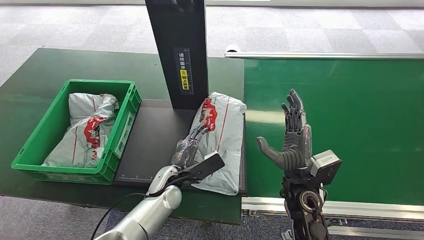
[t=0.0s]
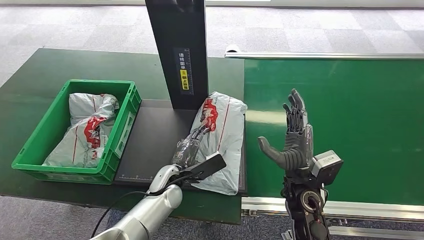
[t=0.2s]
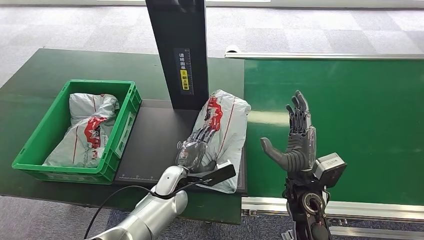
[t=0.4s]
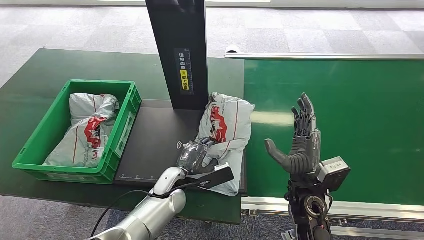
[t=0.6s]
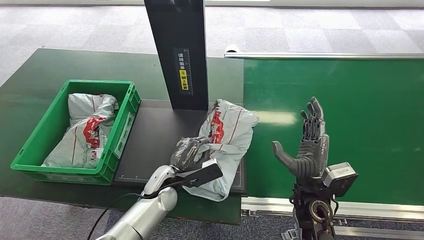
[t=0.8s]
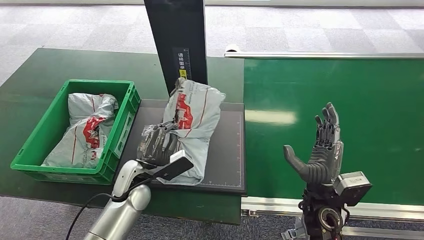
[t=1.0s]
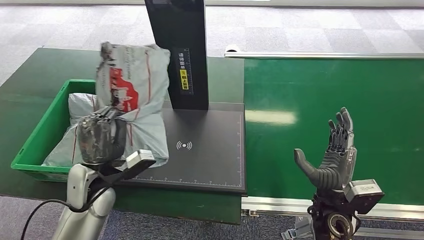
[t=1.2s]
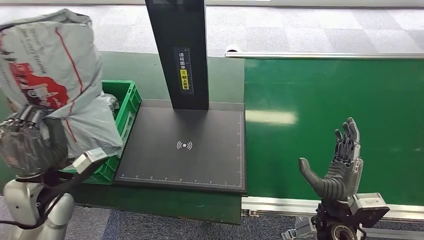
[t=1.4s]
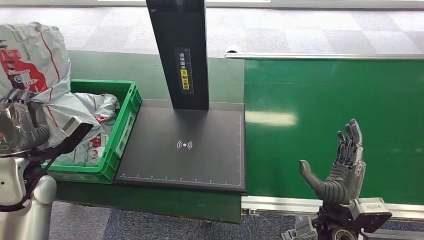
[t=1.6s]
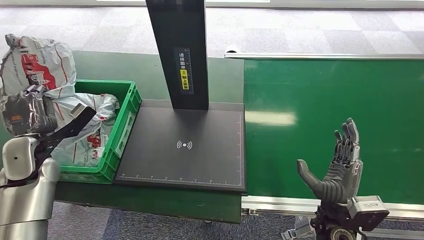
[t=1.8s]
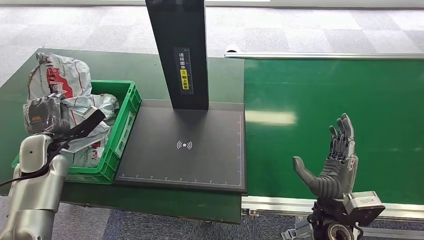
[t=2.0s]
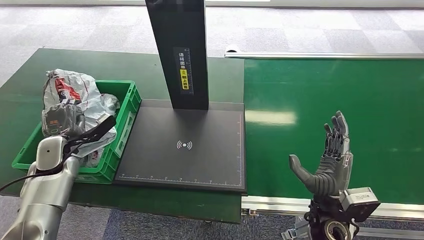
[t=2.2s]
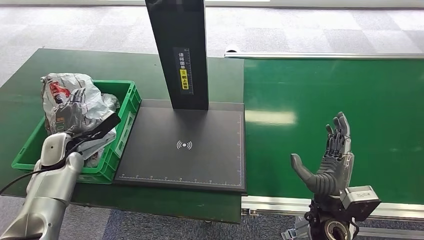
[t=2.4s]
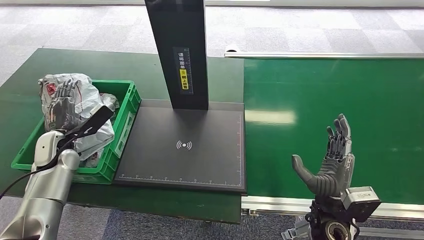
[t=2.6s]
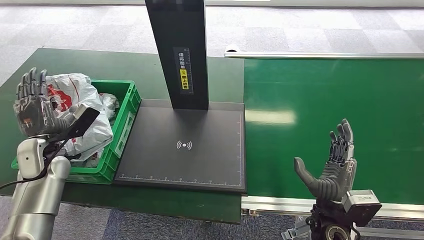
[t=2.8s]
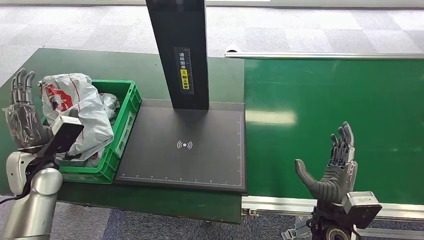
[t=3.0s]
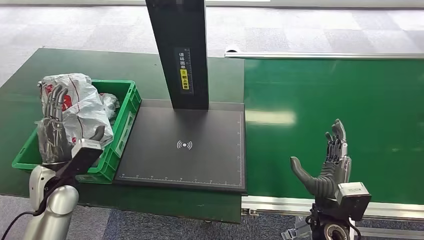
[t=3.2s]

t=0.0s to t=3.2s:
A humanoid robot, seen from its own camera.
Step, t=0.0s to t=1.2s: Pick up the package from the inbound machine.
Step, t=1.4s to t=3.0s: Place the package into the parcel locker.
t=1.6s to t=3.2s: The left hand shifts some 5 cm downward, and reaches approximately 10 cm forward, then returns.

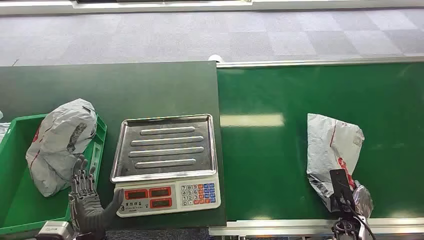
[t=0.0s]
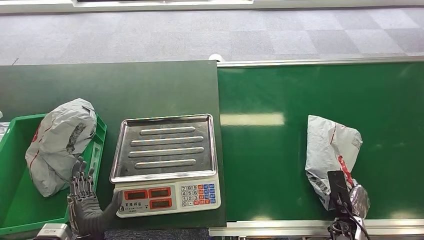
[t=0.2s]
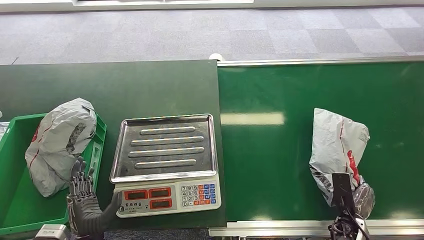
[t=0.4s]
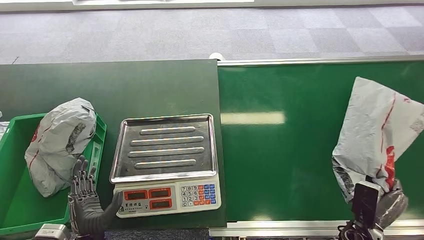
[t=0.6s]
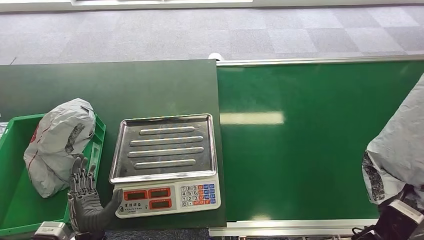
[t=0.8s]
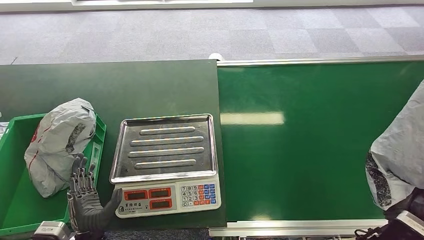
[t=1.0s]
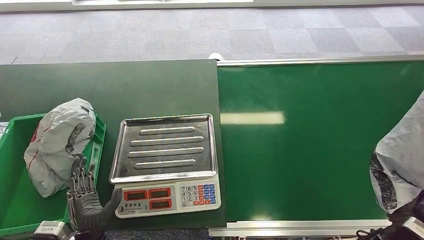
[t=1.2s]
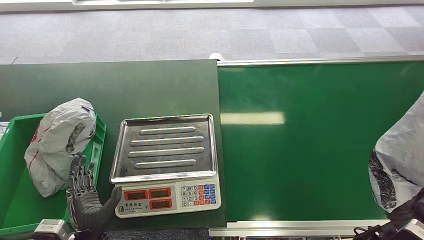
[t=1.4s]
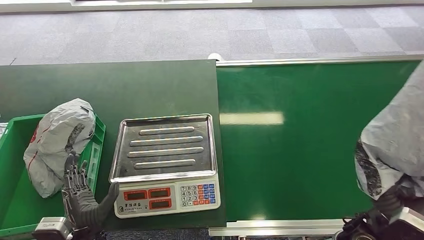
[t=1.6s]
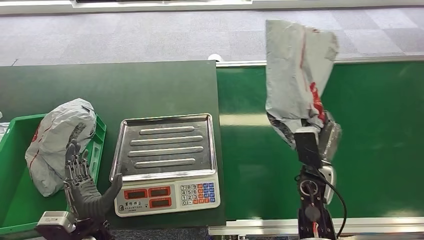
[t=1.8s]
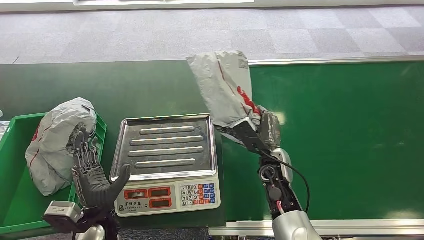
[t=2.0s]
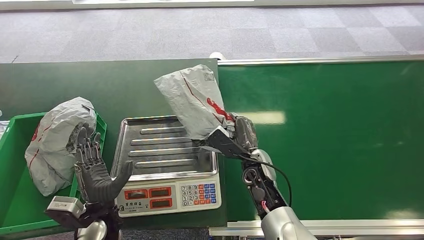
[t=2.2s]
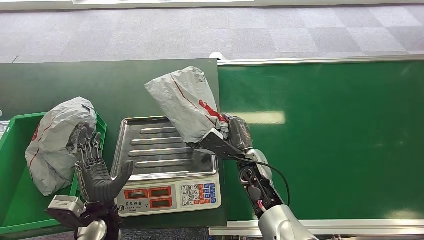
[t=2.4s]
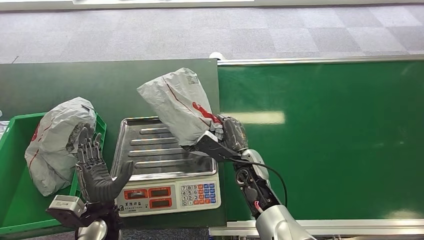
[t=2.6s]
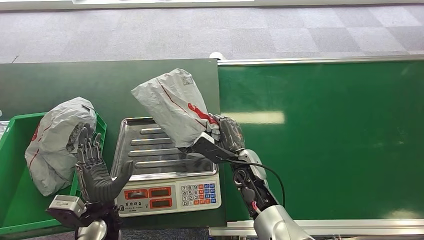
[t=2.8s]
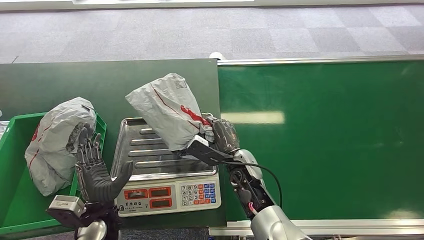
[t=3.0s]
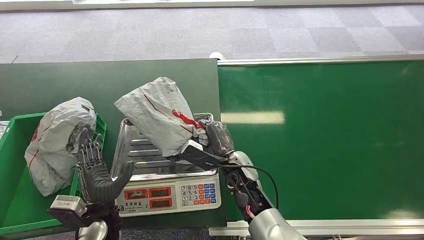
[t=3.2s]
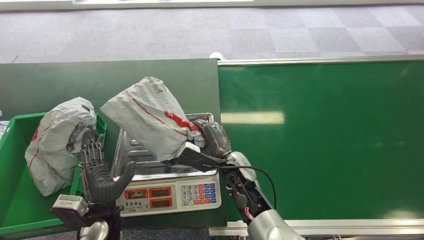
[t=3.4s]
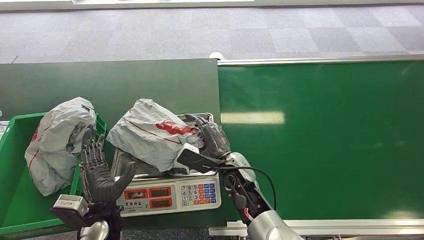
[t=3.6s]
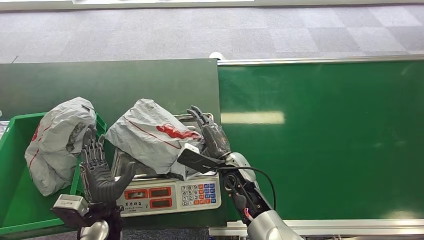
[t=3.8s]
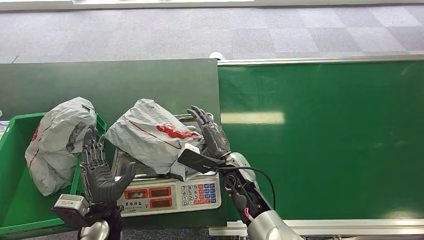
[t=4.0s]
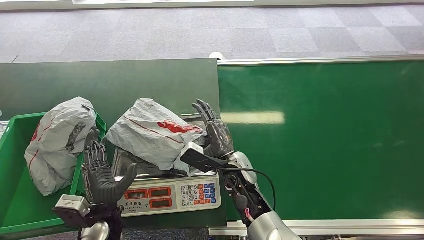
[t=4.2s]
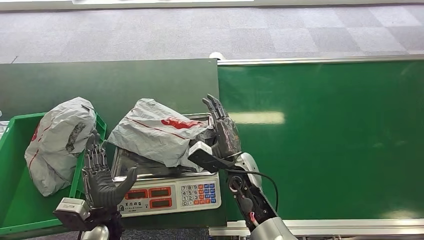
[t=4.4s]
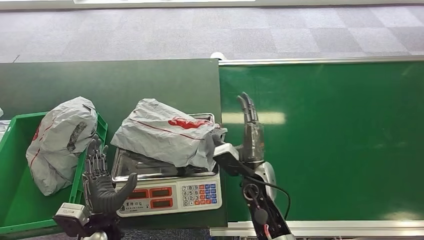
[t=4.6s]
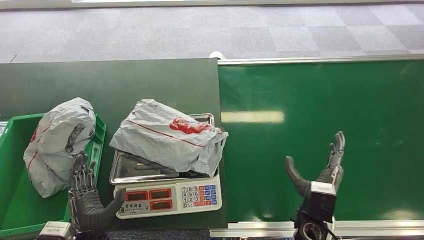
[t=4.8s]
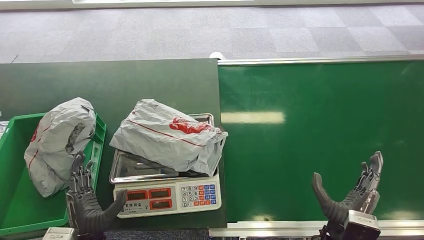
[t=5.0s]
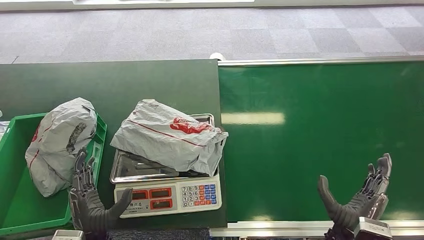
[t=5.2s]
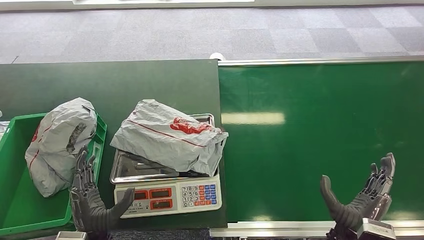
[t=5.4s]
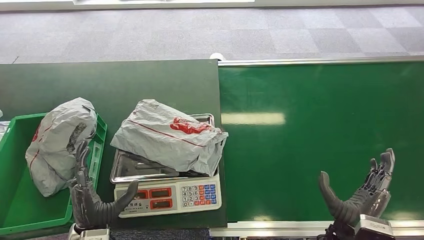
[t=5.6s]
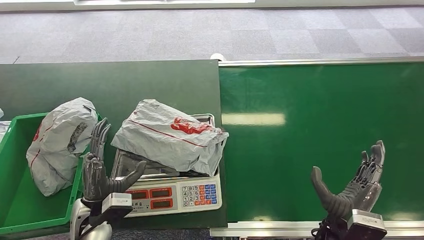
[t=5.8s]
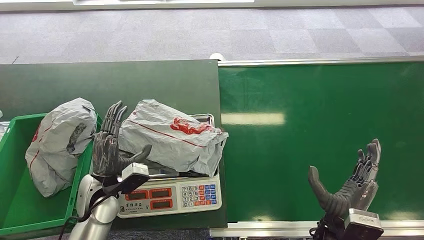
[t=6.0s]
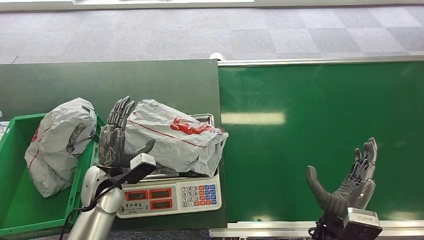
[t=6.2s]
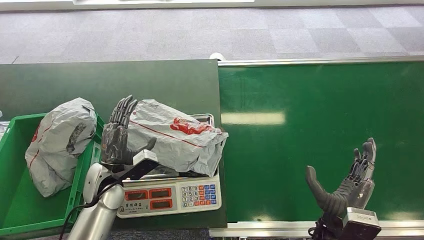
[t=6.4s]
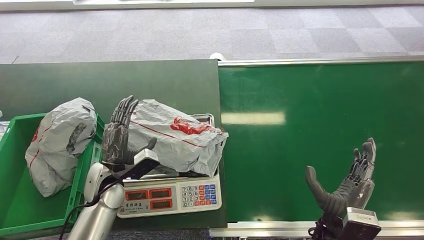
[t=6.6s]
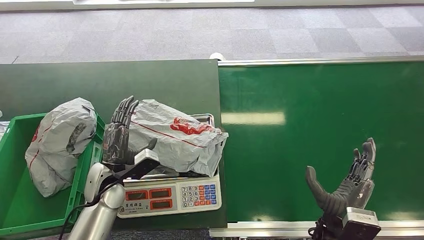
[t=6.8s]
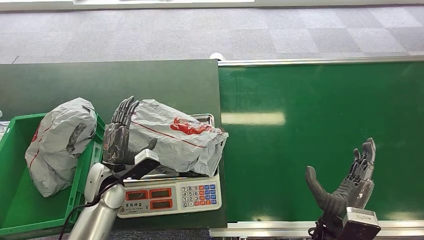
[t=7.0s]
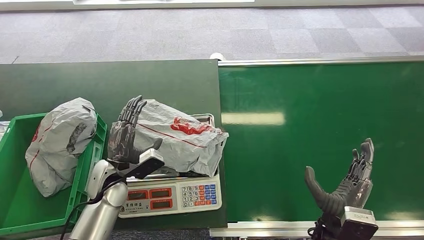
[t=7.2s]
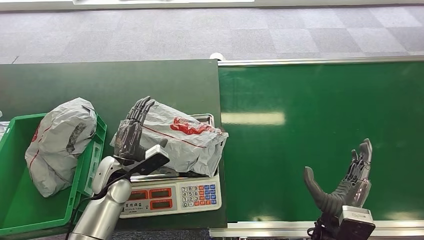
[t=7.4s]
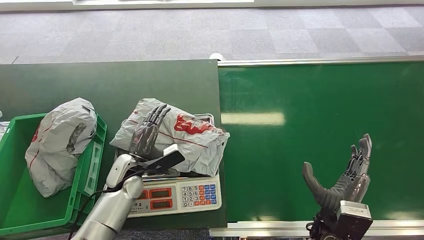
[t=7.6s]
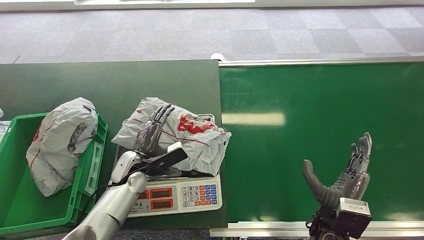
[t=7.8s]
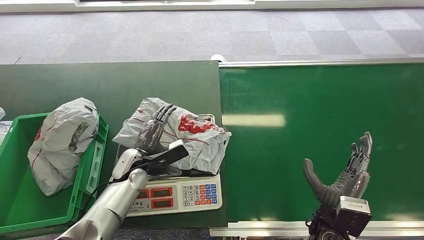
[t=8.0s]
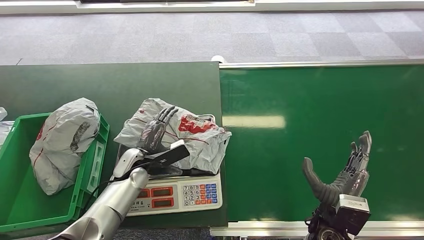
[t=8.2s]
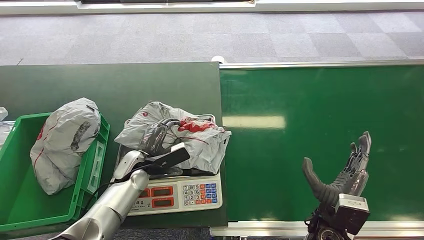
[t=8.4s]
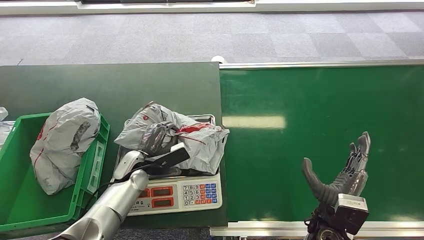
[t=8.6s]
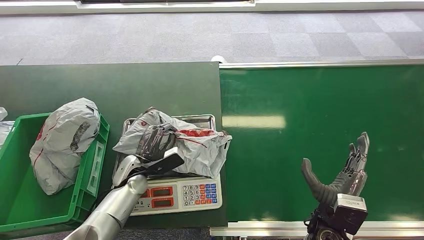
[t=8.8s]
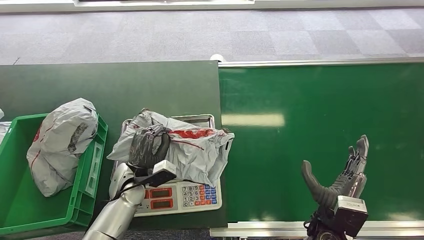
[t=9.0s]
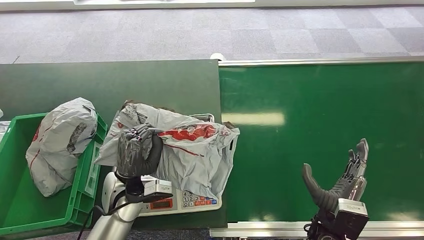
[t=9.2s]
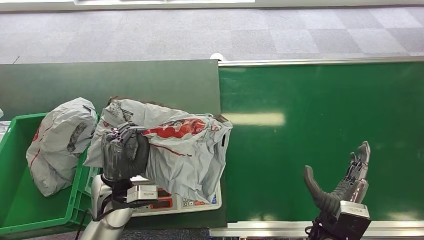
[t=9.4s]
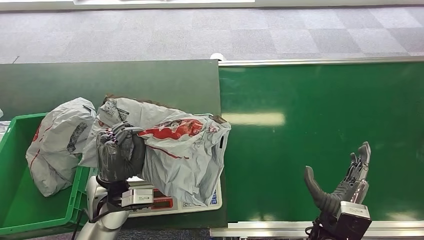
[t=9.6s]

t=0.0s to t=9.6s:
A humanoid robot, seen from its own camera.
Step, t=0.0s to t=0.6s: Pick up the package from the conveyor belt.
Step, t=2.2s to t=3.8s: Place the package onto the inbound machine.
t=4.8s to t=6.4s: The left hand travels forward and upward by about 15 cm. Meanwhile the right hand shifts by roughly 5 cm.
t=6.4s to t=8.0s: The left hand shifts about 5 cm forward.
t=8.0s to t=9.6s: The left hand travels backward and upward by roughly 10 cm.

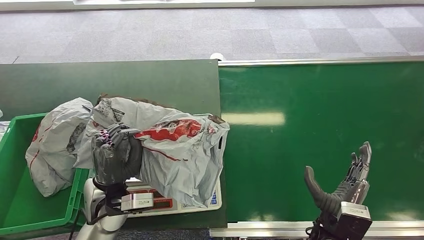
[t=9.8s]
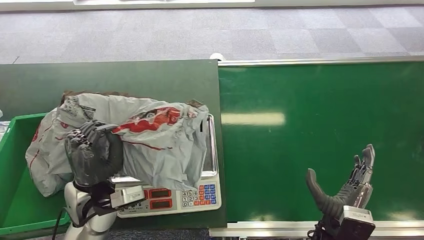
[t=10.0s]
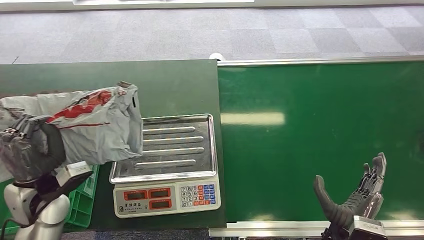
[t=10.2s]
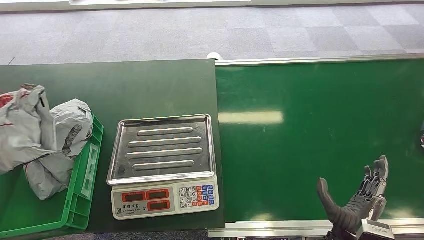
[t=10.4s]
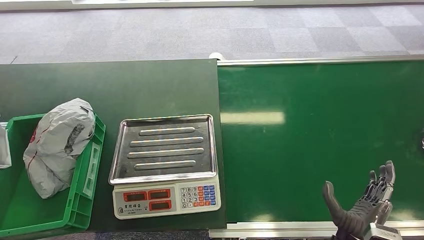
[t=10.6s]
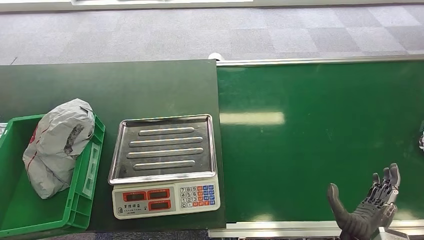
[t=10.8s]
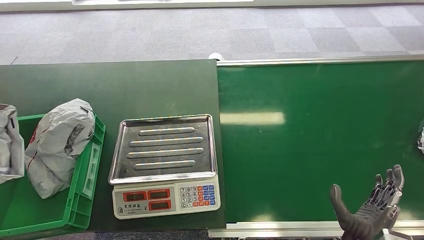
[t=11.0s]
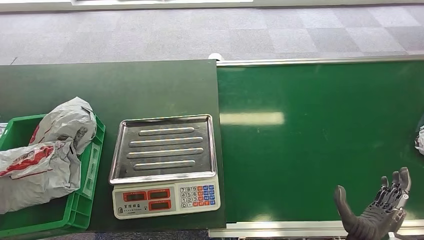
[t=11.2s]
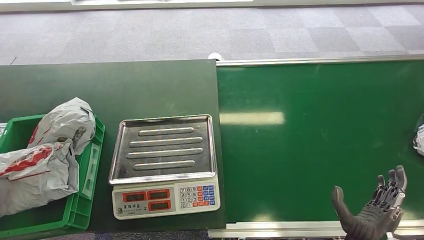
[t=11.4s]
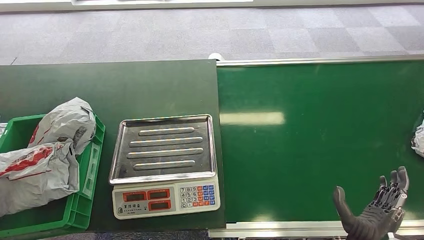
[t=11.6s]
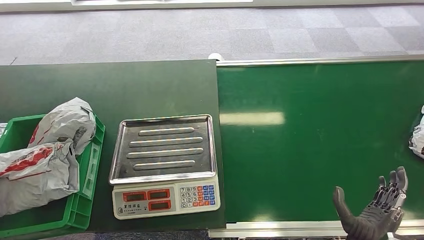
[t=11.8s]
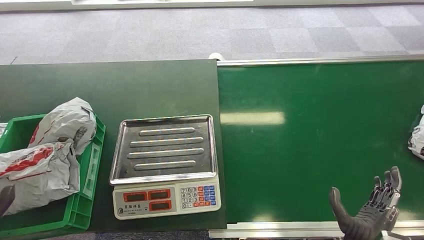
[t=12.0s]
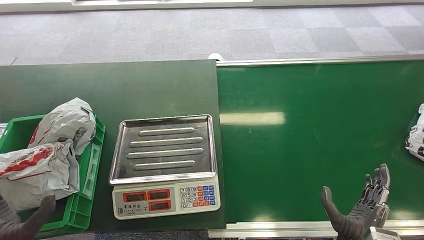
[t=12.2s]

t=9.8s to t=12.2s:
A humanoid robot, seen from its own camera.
Step, t=11.0s to t=12.2s: Place the package into the parcel locker.
t=11.0s to t=12.2s: The left hand heads to the right, covering roughly 20 cm.
